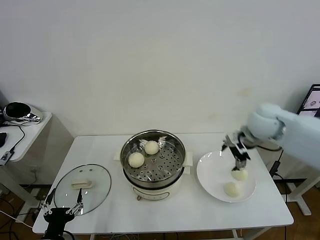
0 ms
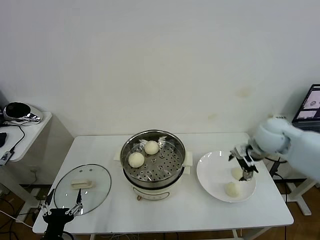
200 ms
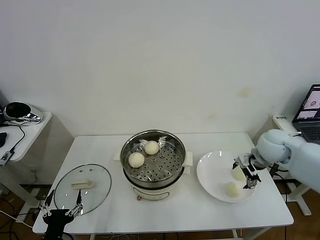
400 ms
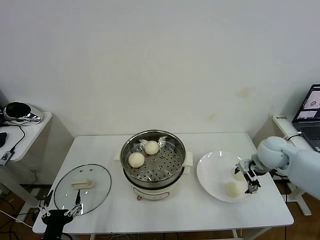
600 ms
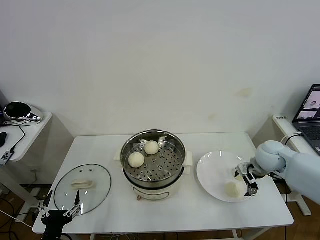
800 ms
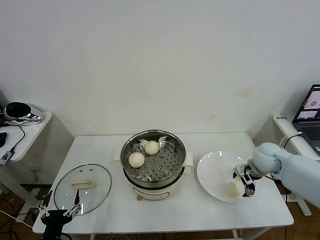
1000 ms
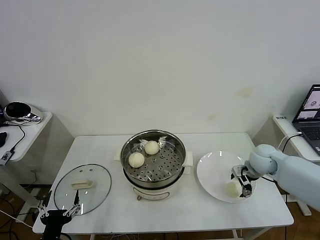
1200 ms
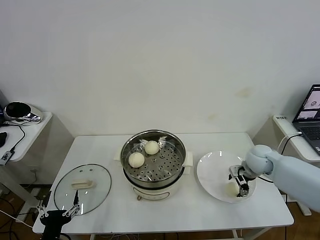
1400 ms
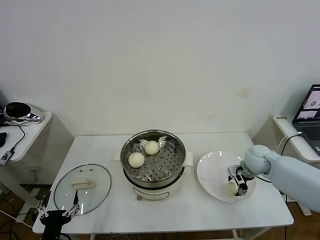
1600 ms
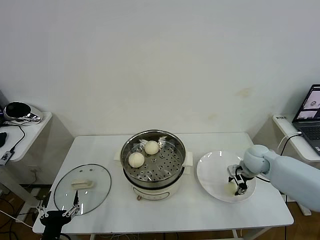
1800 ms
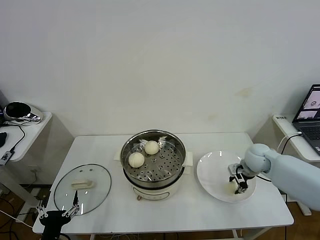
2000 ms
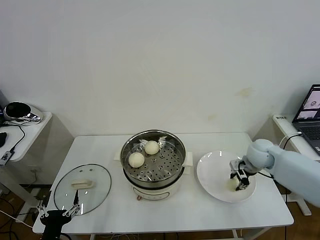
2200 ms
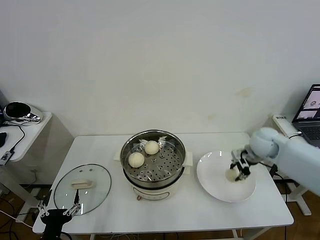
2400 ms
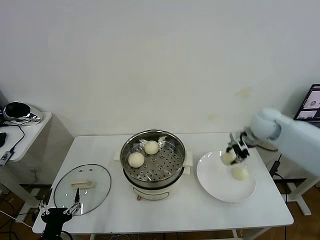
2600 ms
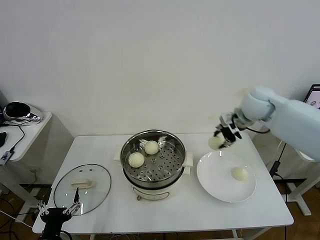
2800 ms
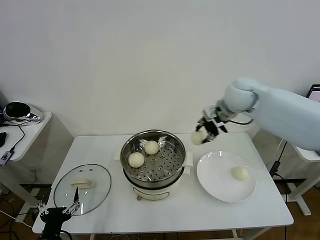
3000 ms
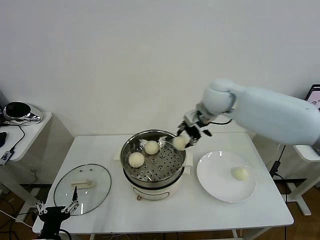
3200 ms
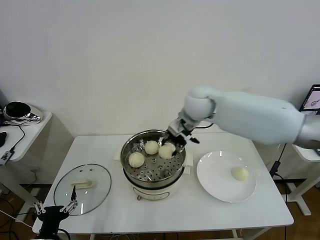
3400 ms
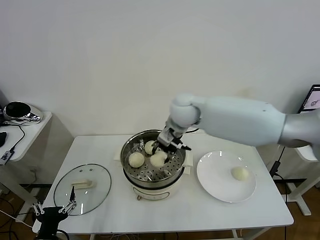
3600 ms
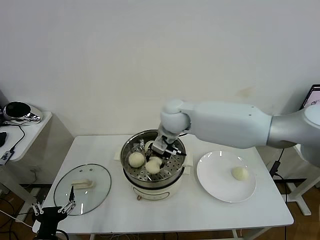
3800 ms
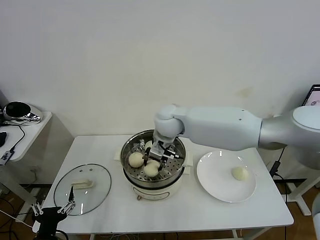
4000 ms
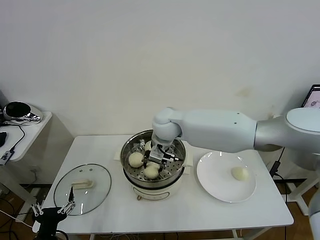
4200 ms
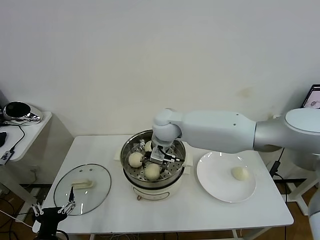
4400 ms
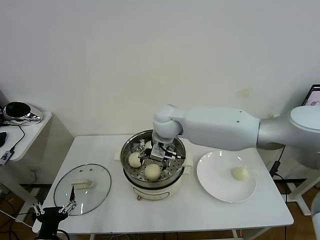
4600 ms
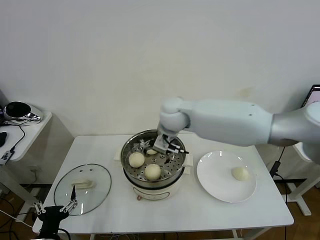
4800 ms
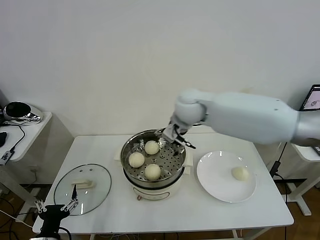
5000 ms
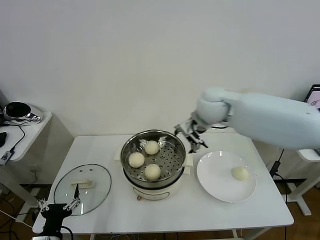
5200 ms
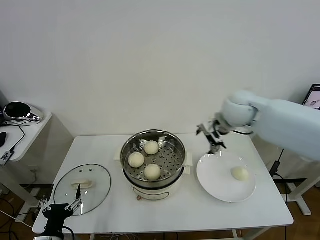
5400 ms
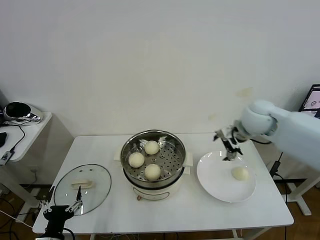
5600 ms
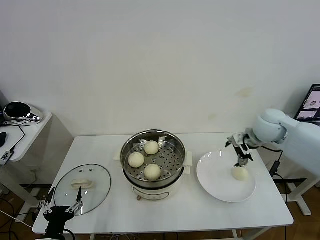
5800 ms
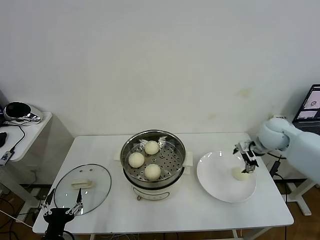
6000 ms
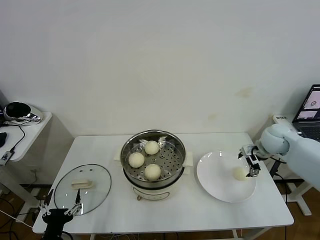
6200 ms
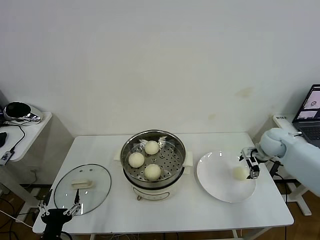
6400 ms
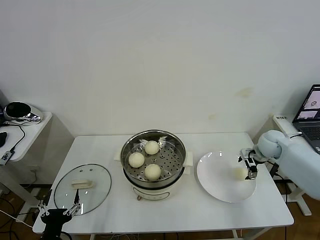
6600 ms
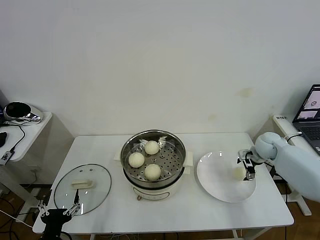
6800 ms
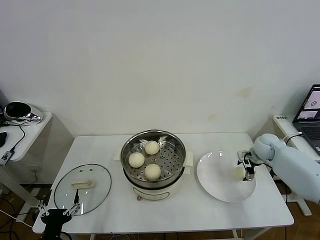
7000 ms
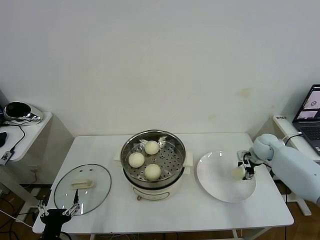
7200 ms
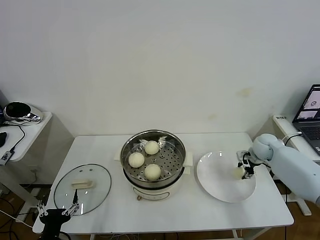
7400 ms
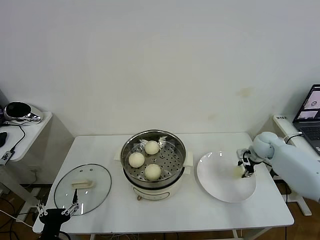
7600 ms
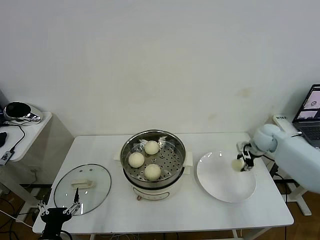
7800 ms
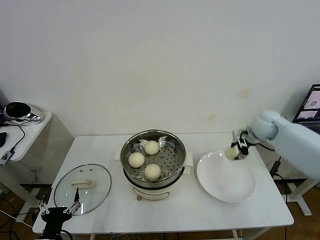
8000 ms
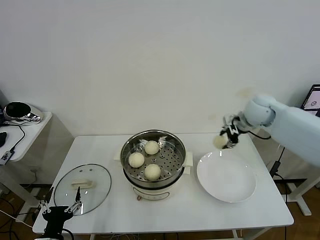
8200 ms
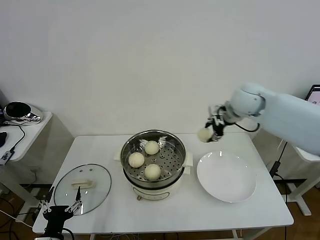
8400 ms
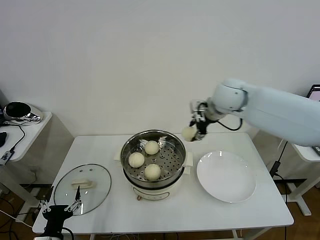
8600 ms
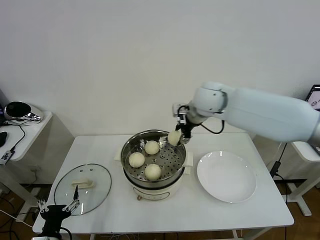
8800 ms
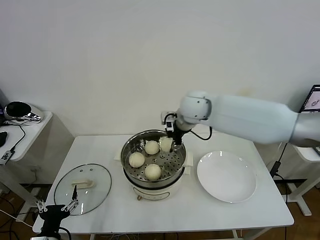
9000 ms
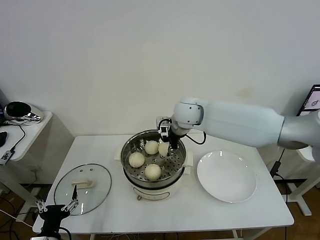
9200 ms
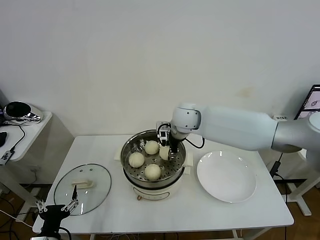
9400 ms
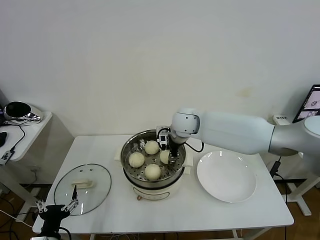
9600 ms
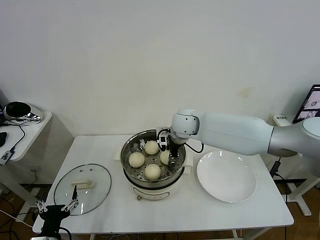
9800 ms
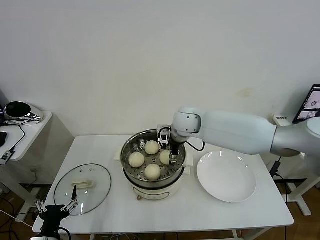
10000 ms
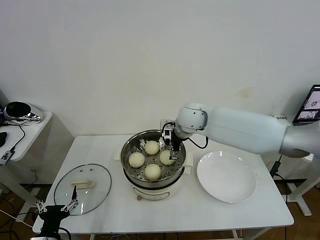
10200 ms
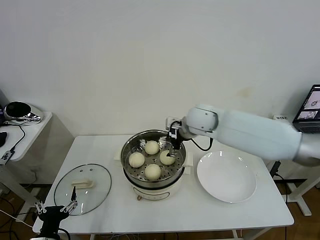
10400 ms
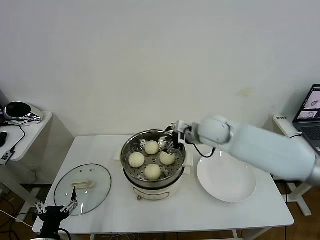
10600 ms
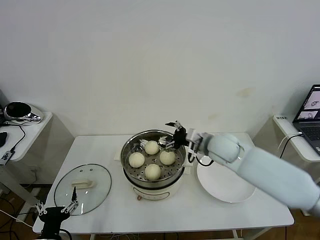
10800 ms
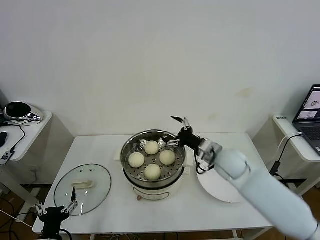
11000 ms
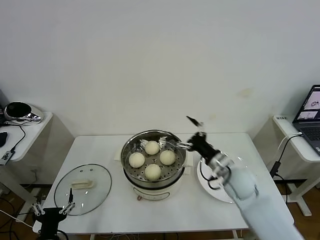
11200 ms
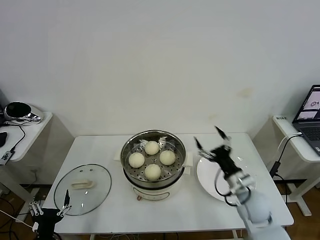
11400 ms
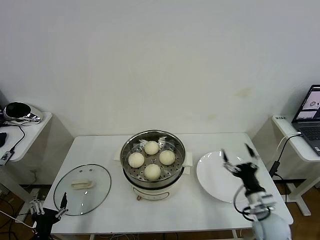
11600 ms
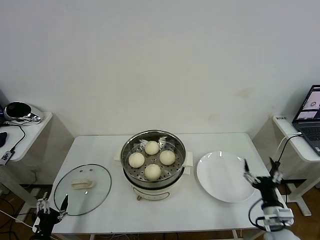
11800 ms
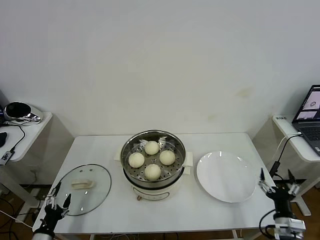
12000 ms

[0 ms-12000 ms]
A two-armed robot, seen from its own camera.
Task of the whole recording: take steamed baozi put them in steamer then cover it.
Step, 0 ms to 1800 ms: Grasp the baozi in the plate with right gripper.
Step, 2000 ms to 4600 ms: Place the baozi on the steamer with right gripper.
Step, 4800 ms to 7400 ms: Grasp the baozi in the plate with right gripper.
Step, 7600 ms to 9800 ms: Place the baozi on the steamer with right gripper.
0 ms to 1600 ms: The right gripper shifts about 15 cm downward, and closes up.
1600 ms to 3000 ms: The right gripper moves upward and to the left, about 25 cm, and closes its fingers.
3000 ms to 4400 ms: The right gripper travels to the left and downward by about 20 cm, and opens up.
4400 ms to 6000 ms: The right gripper is displaced to the right by roughly 35 cm.
6000 ms to 7600 ms: The right gripper moves downward, some 10 cm, and closes up.
7600 ms to 9000 ms: The right gripper shifts approximately 35 cm to the left and upward.
9000 ms to 10400 ms: The right gripper opens its fingers.
10400 ms to 12000 ms: The left gripper goes roughly 10 cm to the left and downward, while the right gripper moves backward, downward and to the right, about 50 cm.

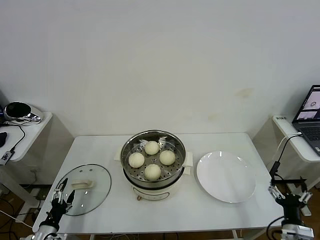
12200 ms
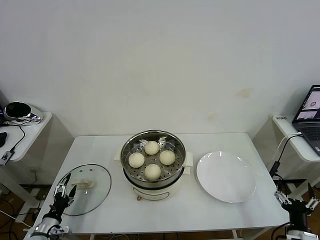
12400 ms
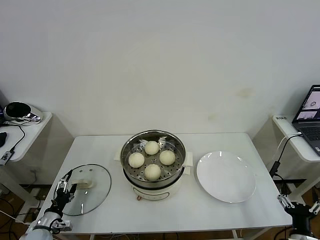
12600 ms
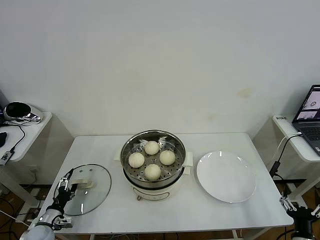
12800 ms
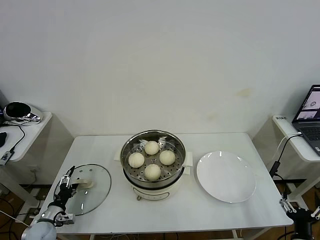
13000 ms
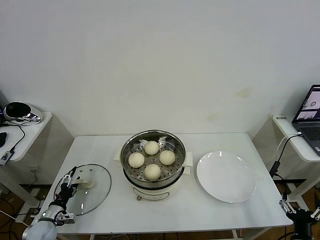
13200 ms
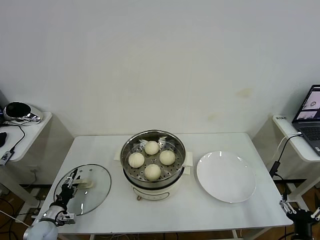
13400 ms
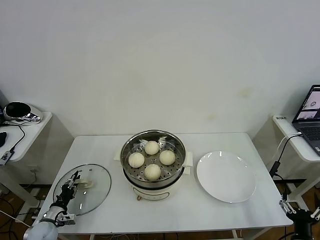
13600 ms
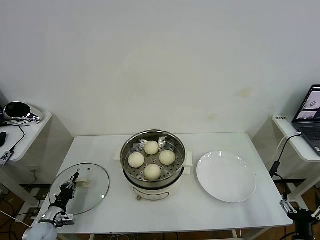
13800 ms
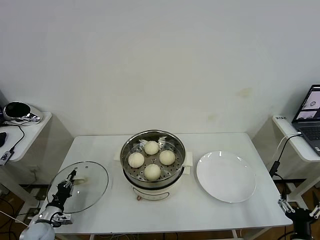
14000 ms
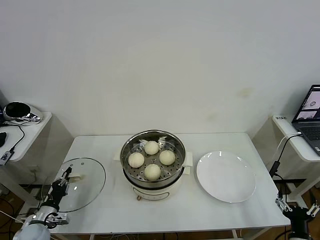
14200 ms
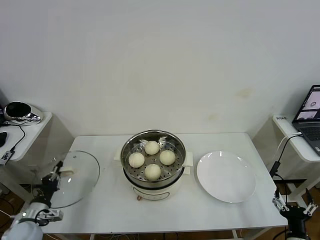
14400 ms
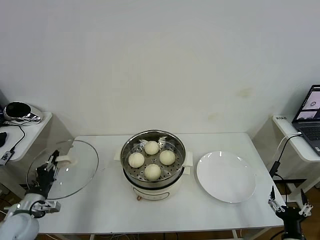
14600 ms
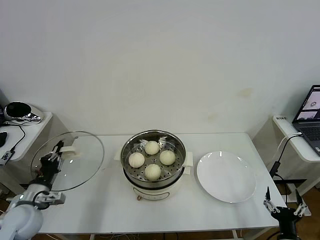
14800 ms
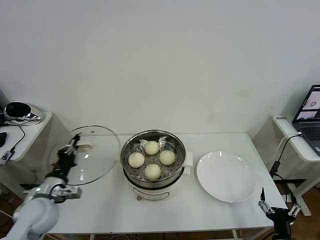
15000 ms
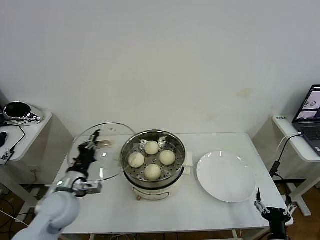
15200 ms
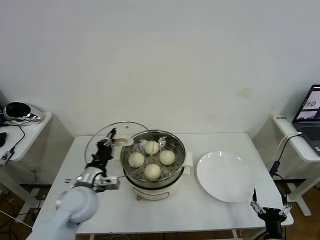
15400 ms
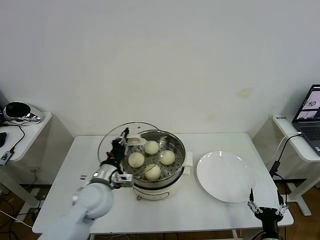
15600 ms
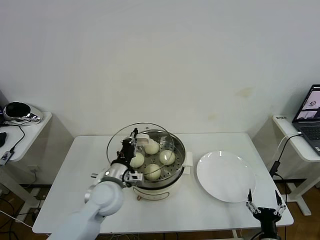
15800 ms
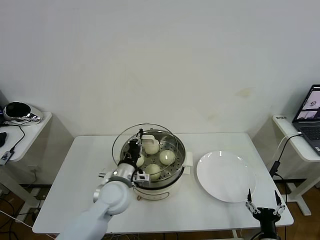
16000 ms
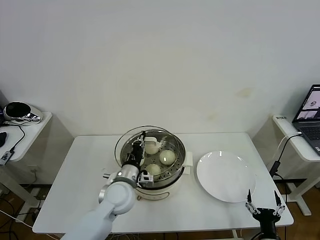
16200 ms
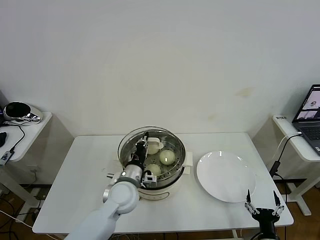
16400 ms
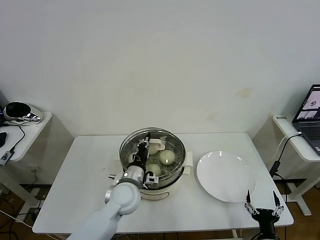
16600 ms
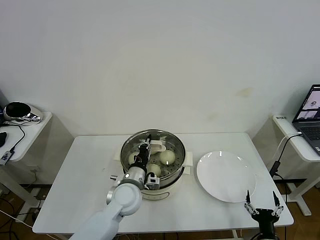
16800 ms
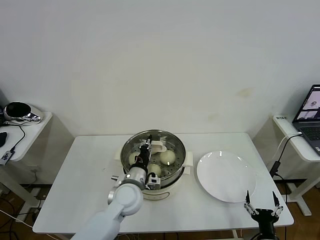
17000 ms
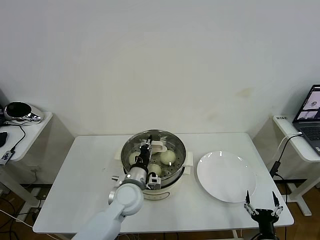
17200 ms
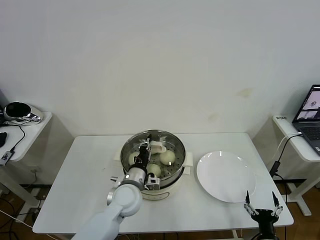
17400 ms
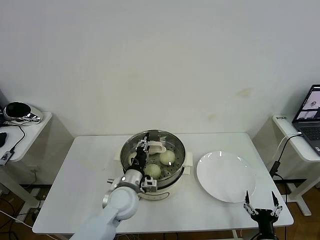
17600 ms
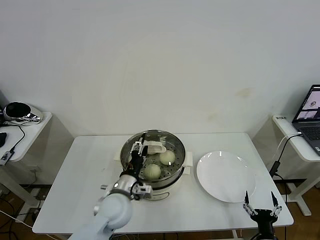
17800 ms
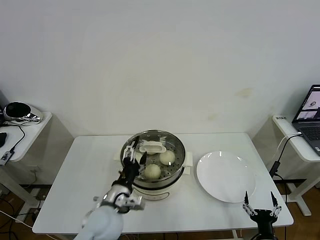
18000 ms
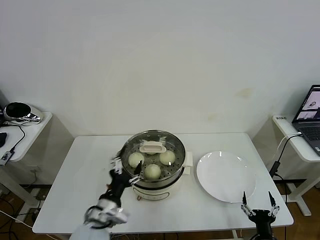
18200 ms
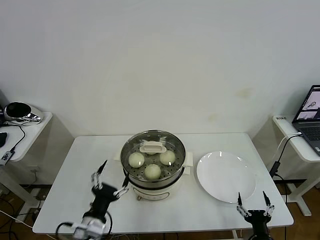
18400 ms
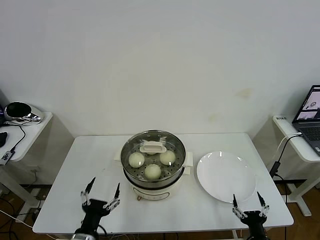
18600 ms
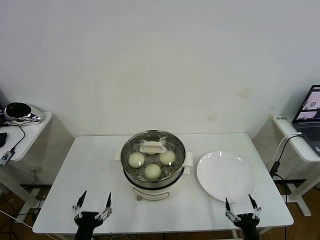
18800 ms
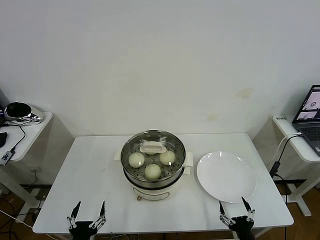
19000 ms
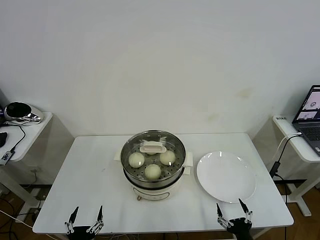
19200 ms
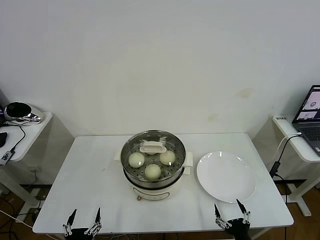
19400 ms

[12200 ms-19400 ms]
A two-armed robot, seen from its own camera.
Task of the whole recording: take steamed baozi put them in steamer then cover it.
Step, 14000 ms to 17600 ms: Place the pot lid on the steamer with left gripper.
12200 ms to 13600 ms: The left gripper shifts some 10 cm forward, and closes.
13600 ms to 15000 ms: The left gripper moves upward and to the right, about 20 cm, and closes up.
15000 ms to 16600 ms: The left gripper travels to the right by approximately 25 cm.
16600 ms to 18000 ms: The left gripper shifts some 5 cm backward, and opens up.
18000 ms to 19400 ms: The left gripper moves backward, to the left and downward, roughly 25 cm, while the right gripper moves about 5 cm.

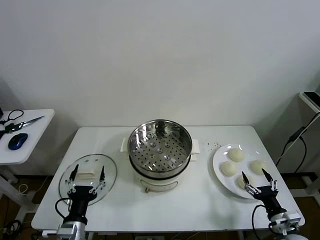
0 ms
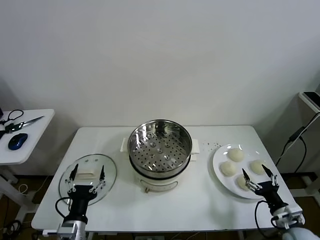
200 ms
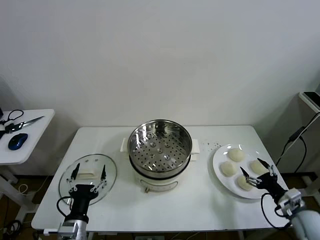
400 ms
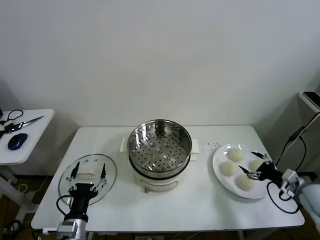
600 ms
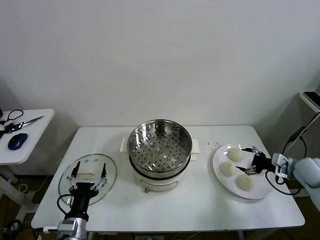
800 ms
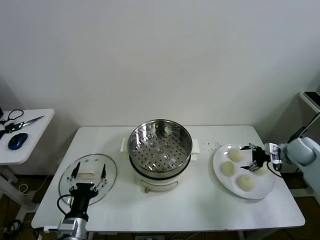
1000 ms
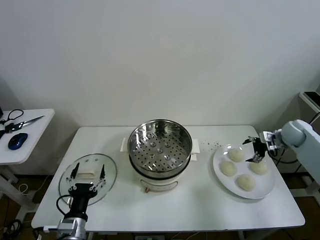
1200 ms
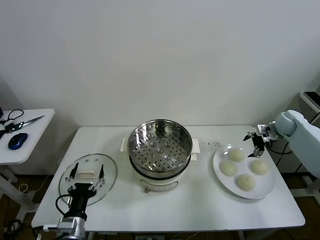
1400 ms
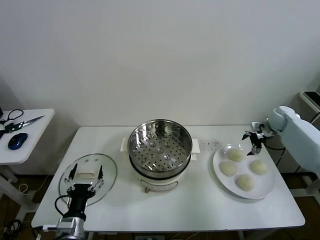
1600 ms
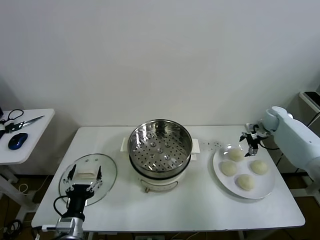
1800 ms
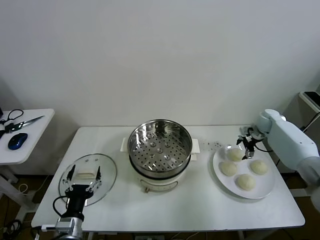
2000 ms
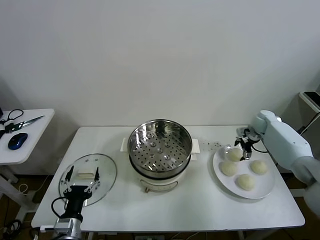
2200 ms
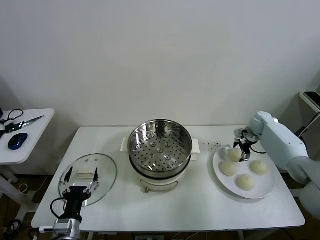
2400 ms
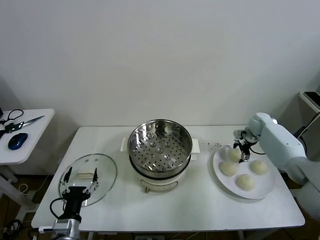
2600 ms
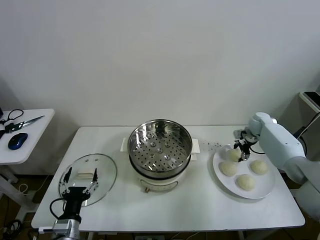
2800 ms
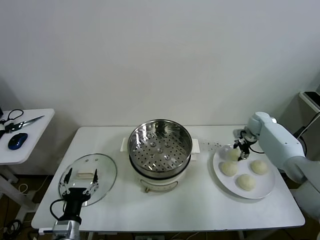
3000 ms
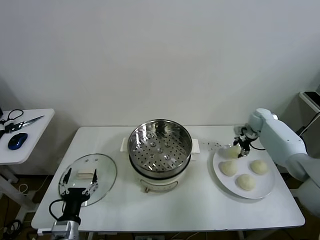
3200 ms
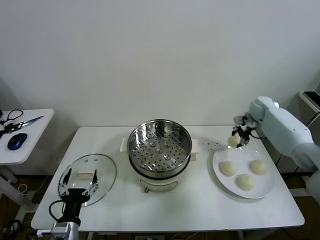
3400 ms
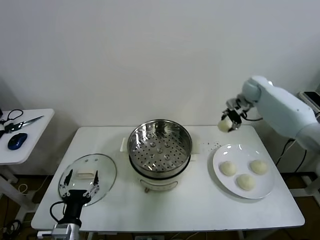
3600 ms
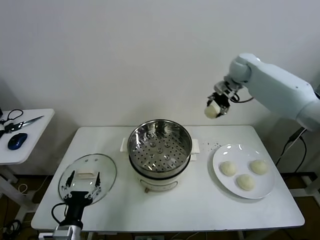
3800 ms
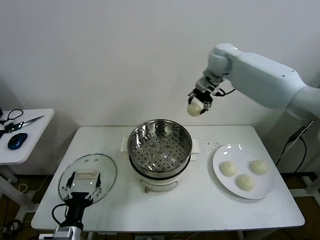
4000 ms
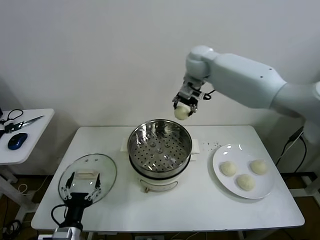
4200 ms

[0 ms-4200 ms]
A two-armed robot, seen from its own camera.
Task of the whole recording: take steamed baozi put them in steamer then cover it.
Step, 0 ms to 2600 ms: Grasp the baozi in the plate with right gripper.
1400 ms to 2800 ms: The right gripper moves to the left and downward, approximately 10 cm, and closes its fingers.
2800 ms to 4200 ms: The right gripper shifts some 40 cm to the left and upward.
